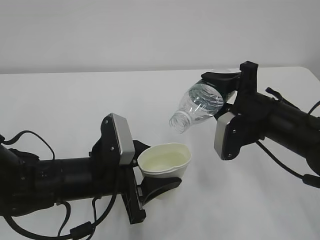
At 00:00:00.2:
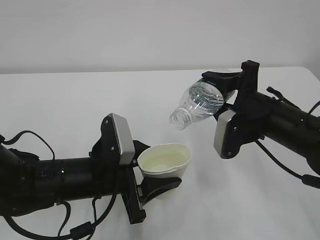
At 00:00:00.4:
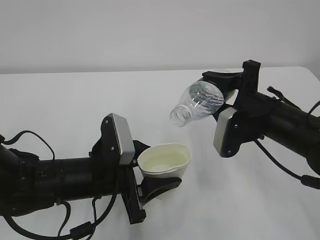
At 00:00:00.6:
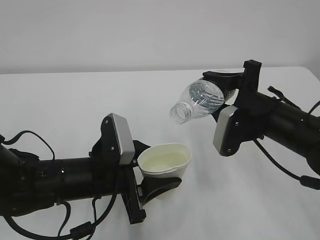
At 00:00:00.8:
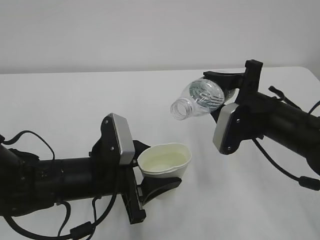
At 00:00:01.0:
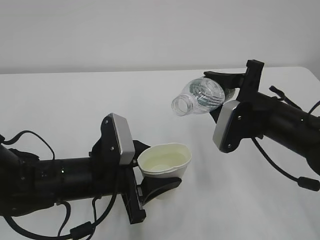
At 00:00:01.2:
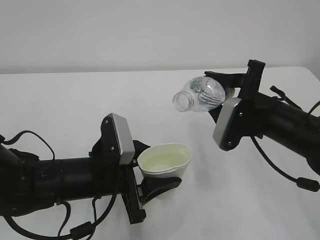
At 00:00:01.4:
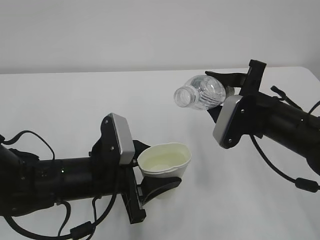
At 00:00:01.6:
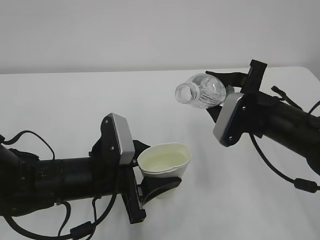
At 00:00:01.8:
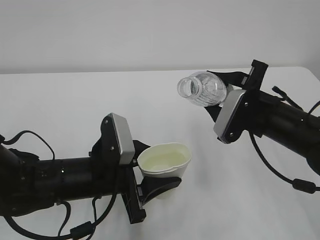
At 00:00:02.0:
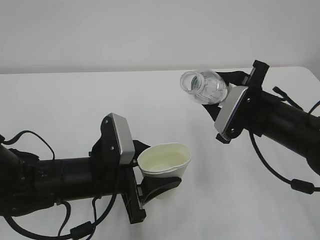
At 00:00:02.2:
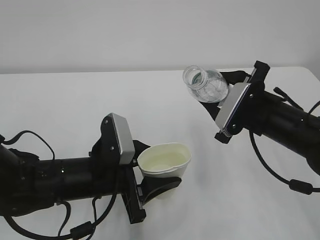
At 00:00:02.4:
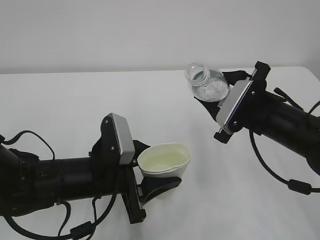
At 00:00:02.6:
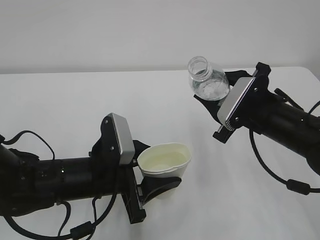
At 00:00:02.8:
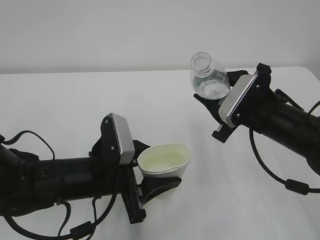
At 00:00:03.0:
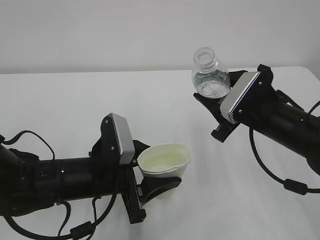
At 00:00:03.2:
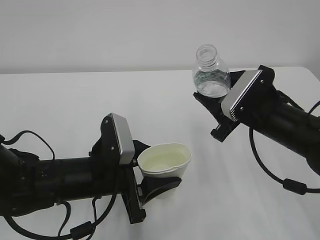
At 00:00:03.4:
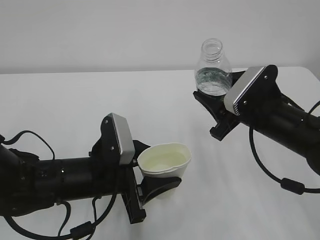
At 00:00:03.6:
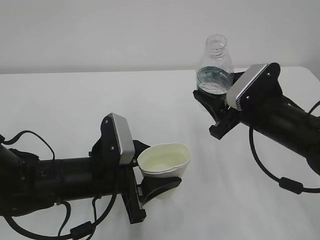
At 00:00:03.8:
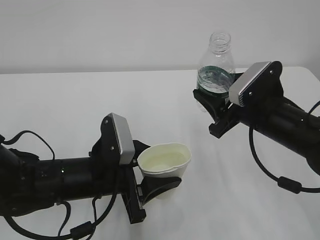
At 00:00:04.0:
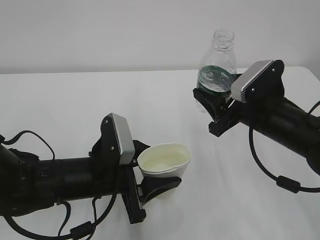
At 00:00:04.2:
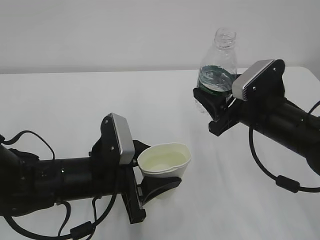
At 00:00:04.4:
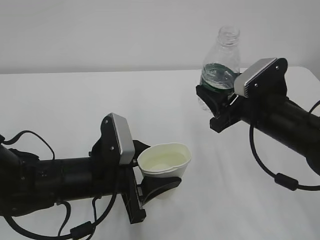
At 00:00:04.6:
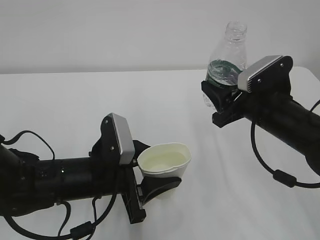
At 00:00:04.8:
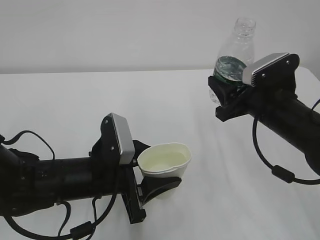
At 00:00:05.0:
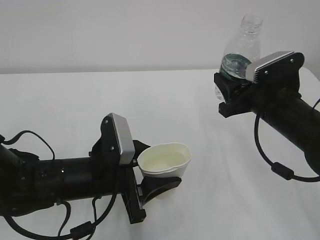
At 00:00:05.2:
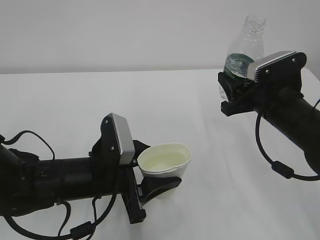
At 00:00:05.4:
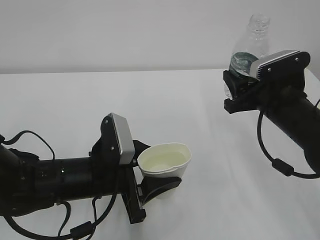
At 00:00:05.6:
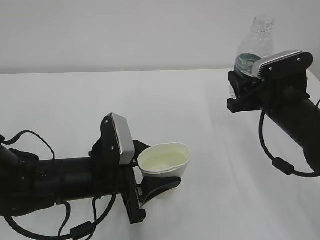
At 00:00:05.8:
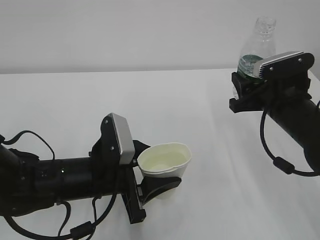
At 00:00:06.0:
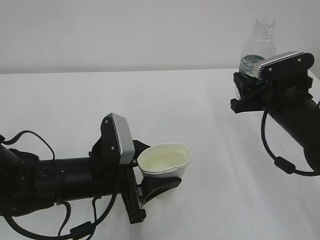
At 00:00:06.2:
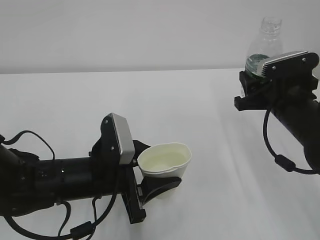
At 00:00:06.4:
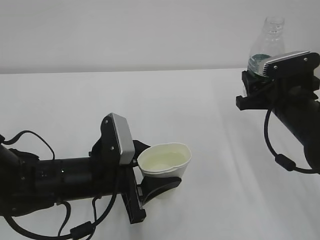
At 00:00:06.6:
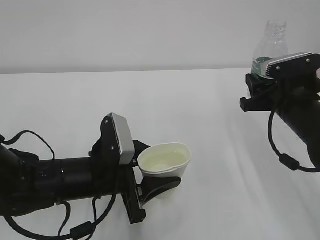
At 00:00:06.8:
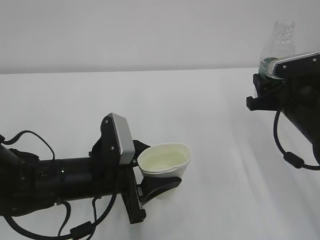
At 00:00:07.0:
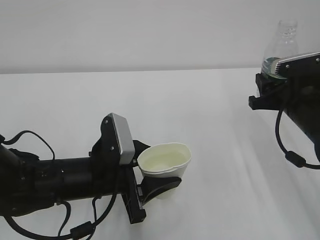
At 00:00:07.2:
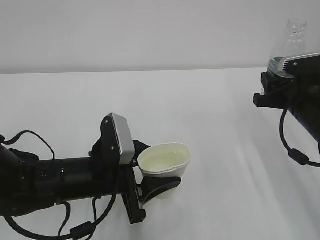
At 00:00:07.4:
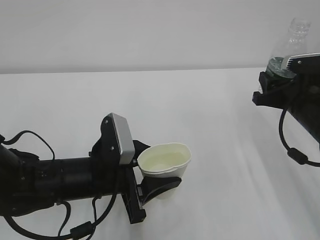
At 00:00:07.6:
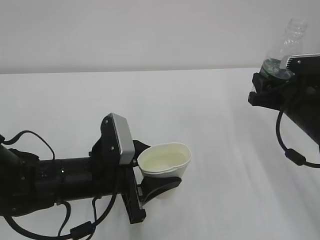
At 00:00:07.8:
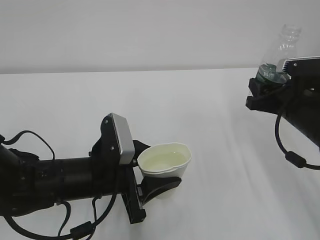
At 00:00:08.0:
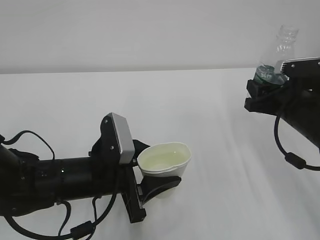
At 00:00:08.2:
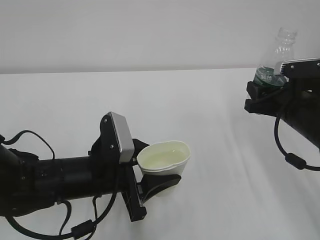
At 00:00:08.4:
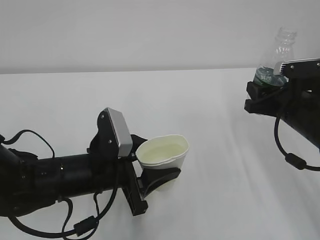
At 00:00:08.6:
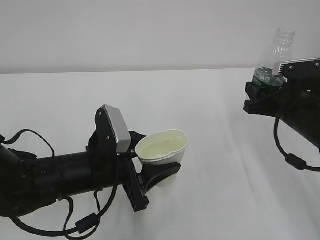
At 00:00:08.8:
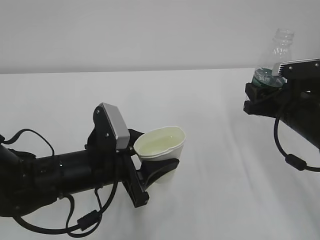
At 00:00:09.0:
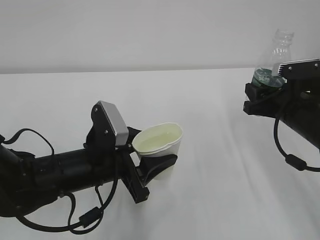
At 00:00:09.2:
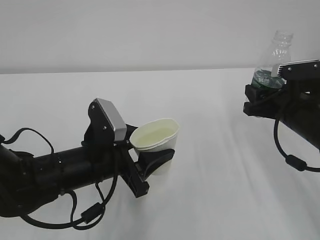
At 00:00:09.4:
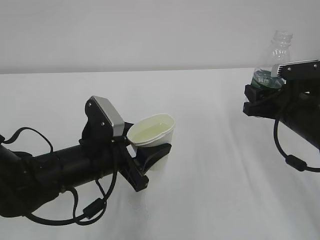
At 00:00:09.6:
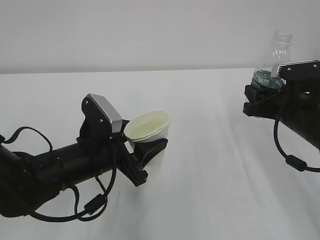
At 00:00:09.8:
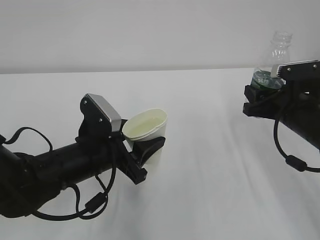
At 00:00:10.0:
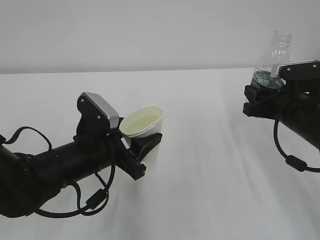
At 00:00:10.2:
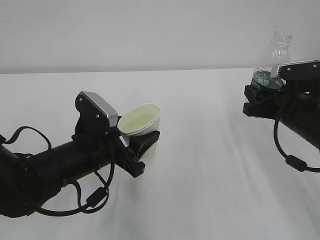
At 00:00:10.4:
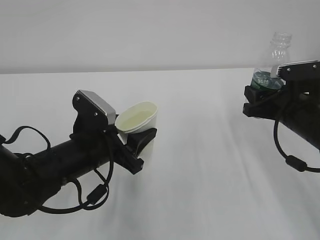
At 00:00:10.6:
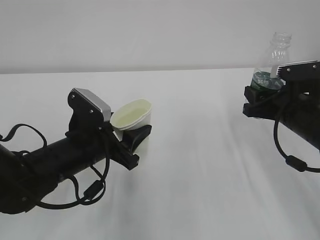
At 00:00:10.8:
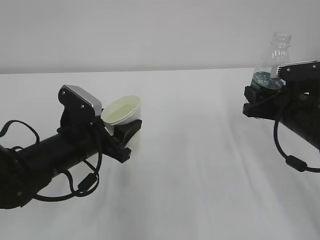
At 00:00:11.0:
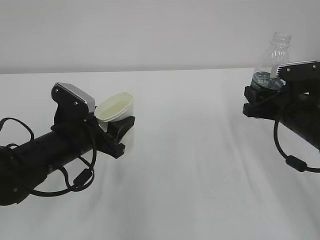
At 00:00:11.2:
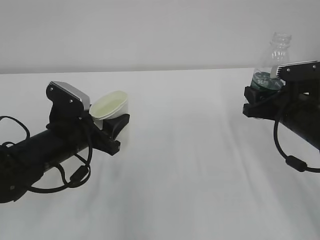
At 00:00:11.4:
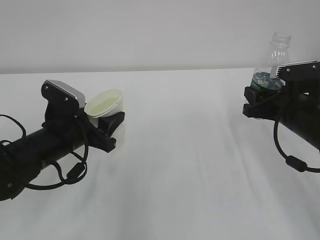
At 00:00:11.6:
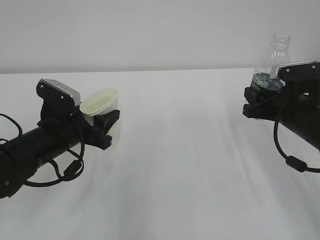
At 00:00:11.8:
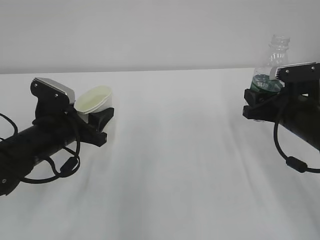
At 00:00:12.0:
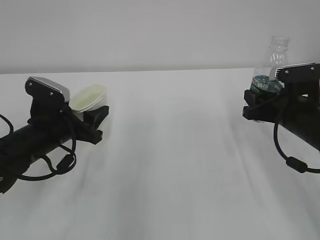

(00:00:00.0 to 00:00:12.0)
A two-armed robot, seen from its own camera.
00:00:06.0 - 00:00:09.0: The grippers make only small movements.
00:00:09.0 - 00:00:10.4: The grippers make only small movements.
00:00:10.4 - 00:00:12.0: The left gripper shifts about 10 cm to the left.

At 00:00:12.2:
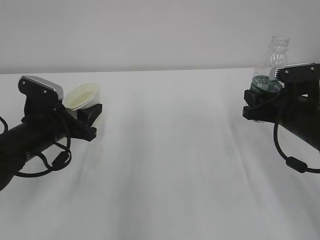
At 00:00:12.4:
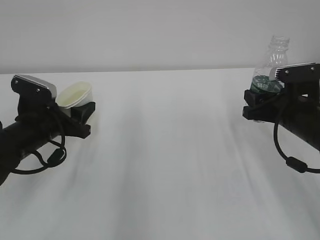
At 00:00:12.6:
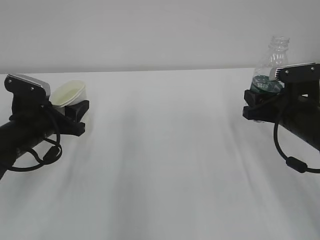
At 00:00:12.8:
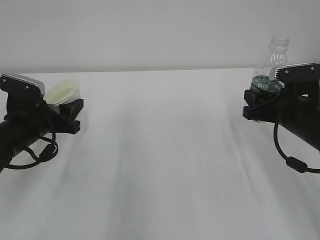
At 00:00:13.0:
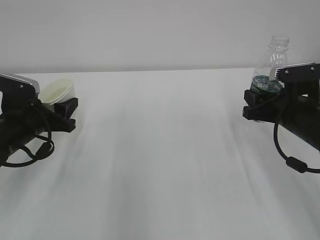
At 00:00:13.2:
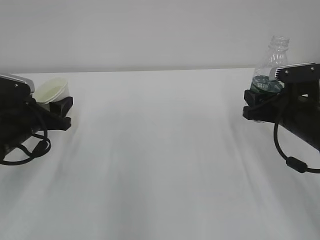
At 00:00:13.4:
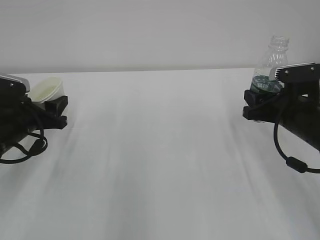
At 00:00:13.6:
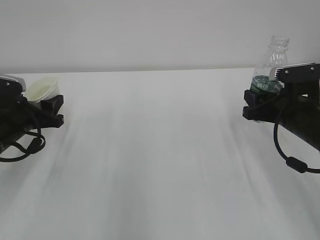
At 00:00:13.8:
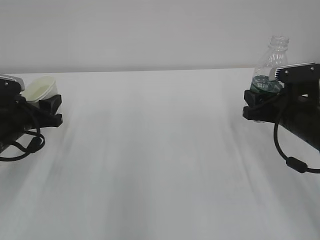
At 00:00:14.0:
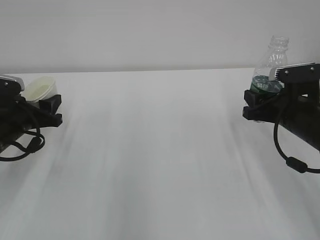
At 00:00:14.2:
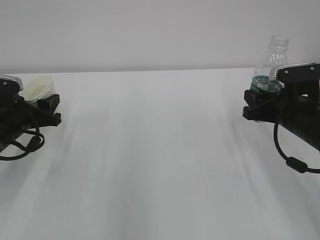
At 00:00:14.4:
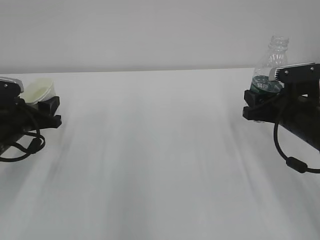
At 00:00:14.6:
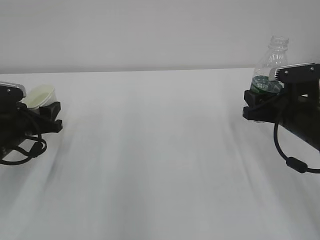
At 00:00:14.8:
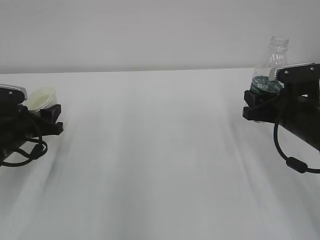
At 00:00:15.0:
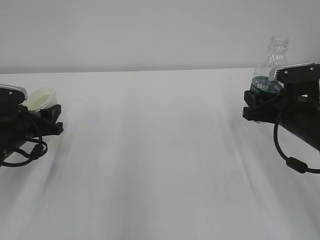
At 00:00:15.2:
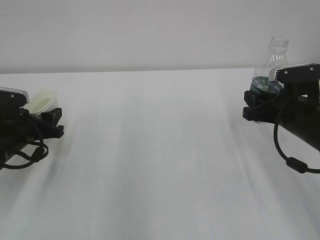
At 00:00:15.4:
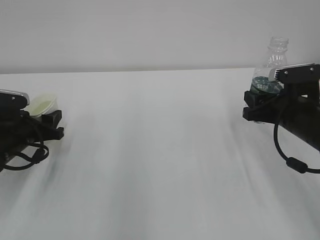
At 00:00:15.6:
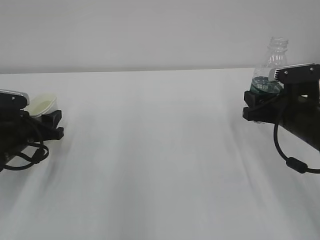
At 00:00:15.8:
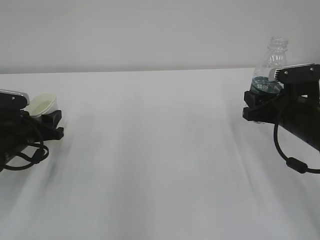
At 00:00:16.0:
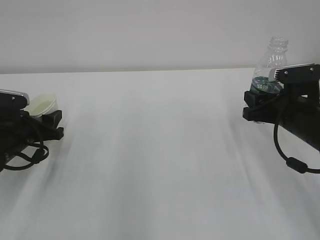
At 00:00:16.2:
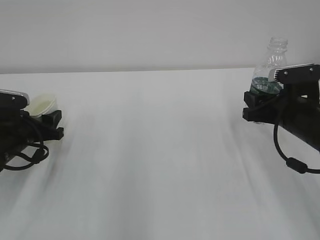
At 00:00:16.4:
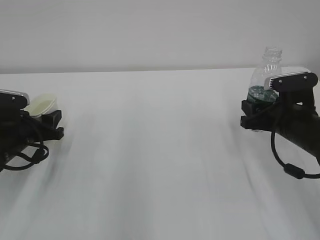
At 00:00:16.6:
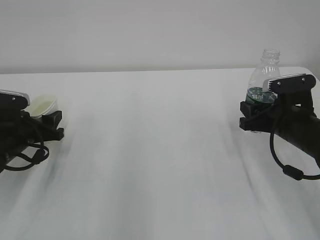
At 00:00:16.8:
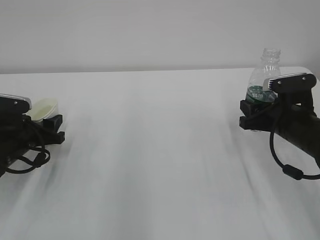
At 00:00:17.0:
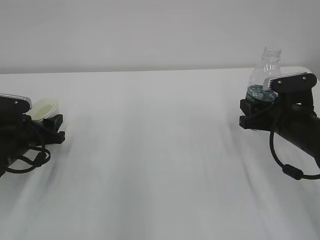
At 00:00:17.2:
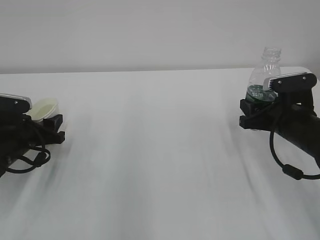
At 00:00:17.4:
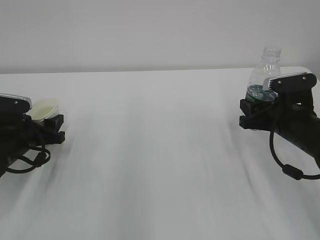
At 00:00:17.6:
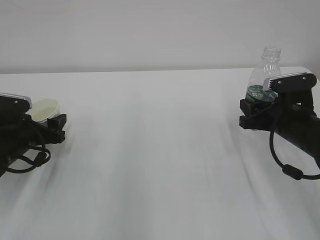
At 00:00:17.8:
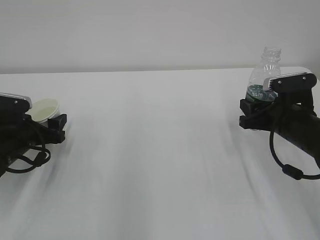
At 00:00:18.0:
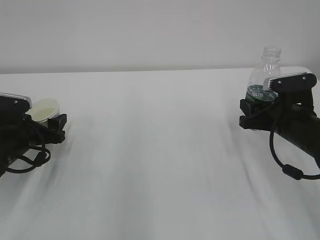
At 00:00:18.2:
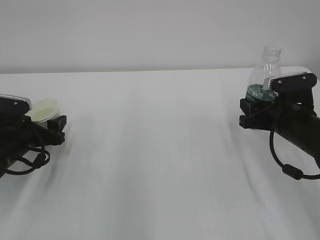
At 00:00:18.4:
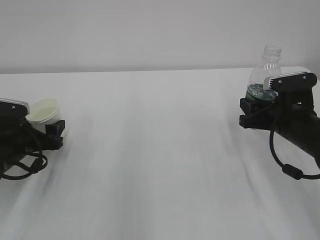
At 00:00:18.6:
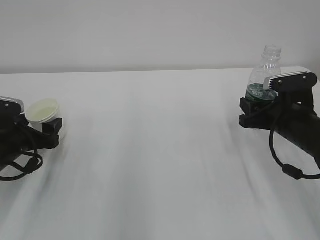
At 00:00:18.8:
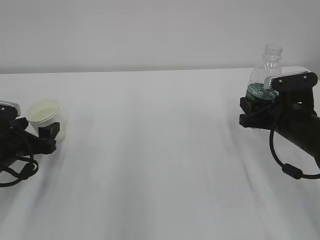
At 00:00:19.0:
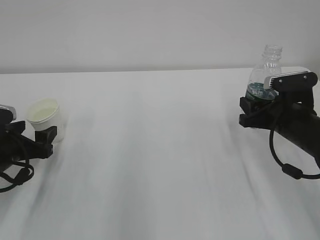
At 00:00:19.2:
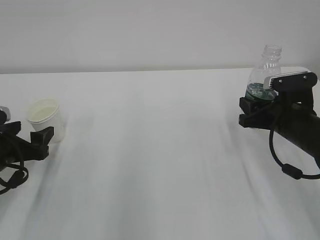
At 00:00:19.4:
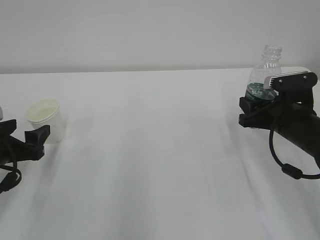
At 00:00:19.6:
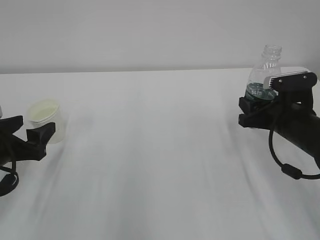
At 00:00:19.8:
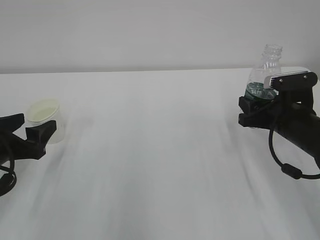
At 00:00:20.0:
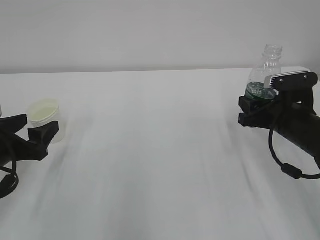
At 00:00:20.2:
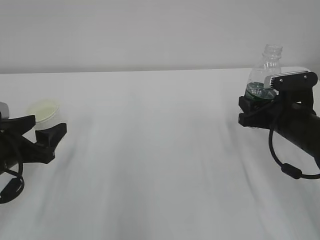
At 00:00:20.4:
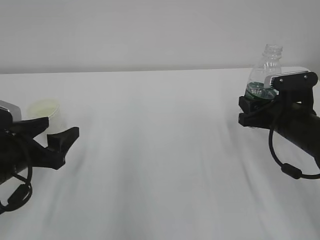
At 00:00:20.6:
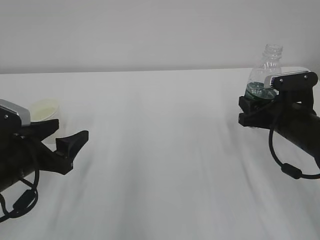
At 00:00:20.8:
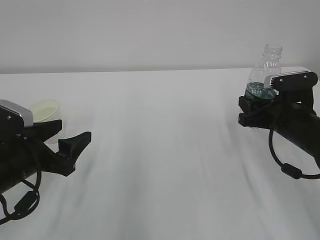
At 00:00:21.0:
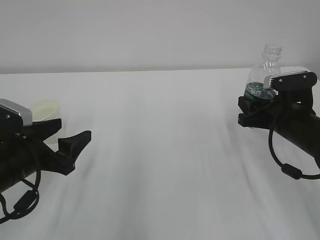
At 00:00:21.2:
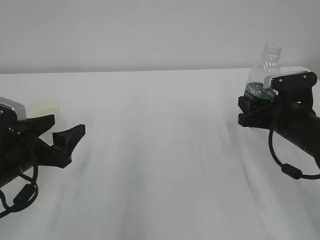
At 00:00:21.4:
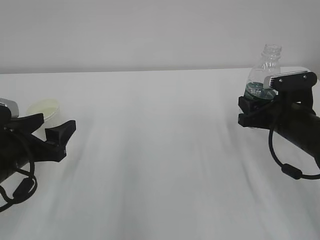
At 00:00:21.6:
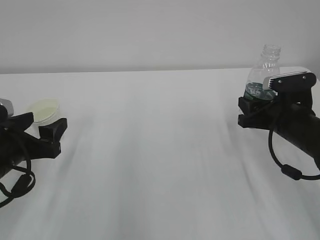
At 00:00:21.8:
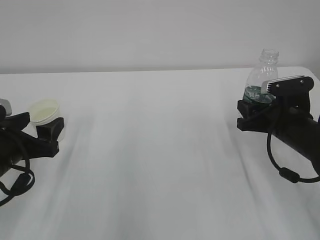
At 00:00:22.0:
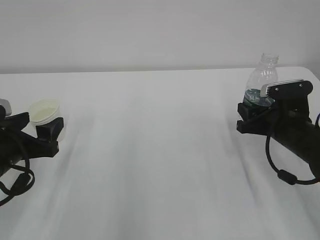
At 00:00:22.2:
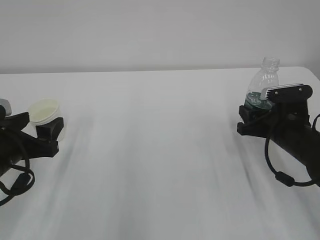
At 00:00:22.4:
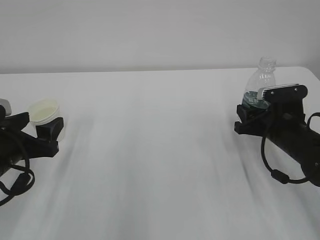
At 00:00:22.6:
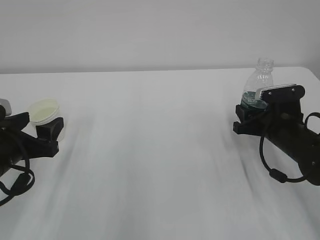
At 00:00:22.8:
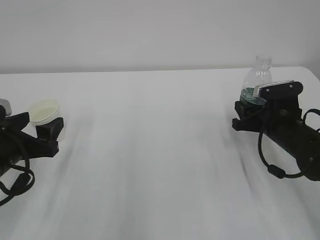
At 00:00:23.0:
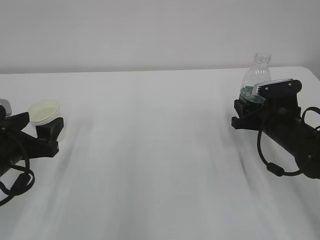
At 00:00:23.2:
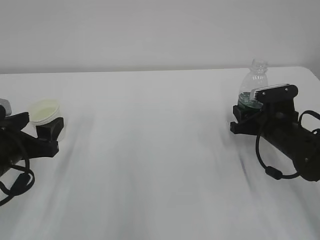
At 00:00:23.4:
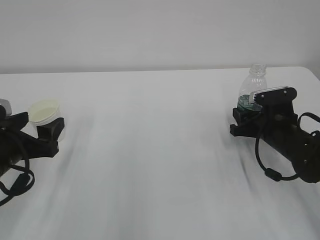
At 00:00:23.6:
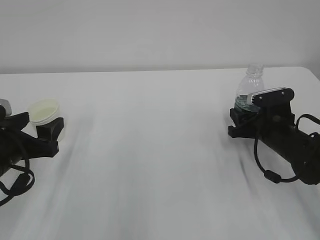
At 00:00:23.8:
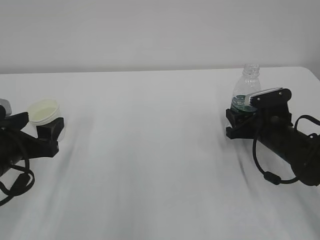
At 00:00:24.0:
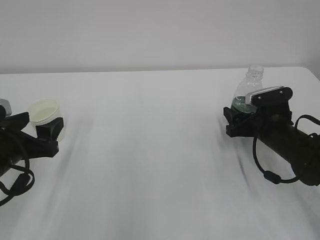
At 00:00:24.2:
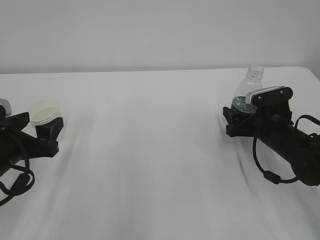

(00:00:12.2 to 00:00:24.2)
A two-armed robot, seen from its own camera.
00:00:12.2 - 00:00:13.8: The left gripper goes roughly 5 cm to the left.
00:00:13.8 - 00:00:16.6: The grippers stay close to where they were, moving slightly.
00:00:16.6 - 00:00:18.2: The left gripper opens up.
00:00:18.2 - 00:00:19.8: The left gripper moves backward and upward, approximately 10 cm.
00:00:19.8 - 00:00:21.2: The left gripper changes place by roughly 5 cm.
00:00:21.2 - 00:00:22.6: There are only small adjustments of the grippers.
00:00:22.6 - 00:00:24.2: The right gripper opens.
